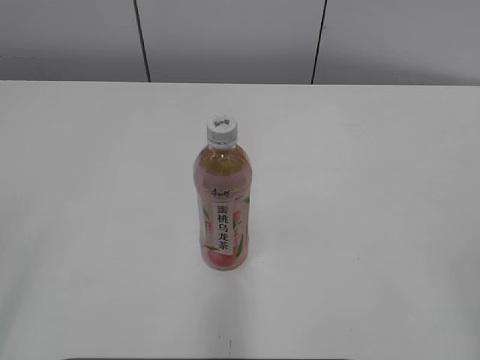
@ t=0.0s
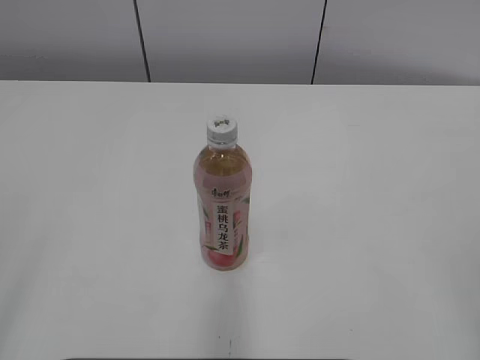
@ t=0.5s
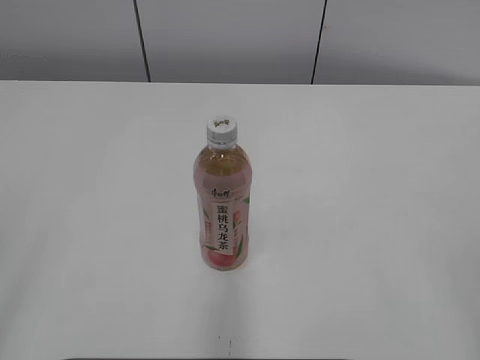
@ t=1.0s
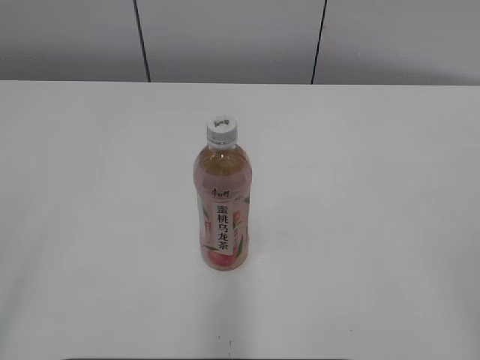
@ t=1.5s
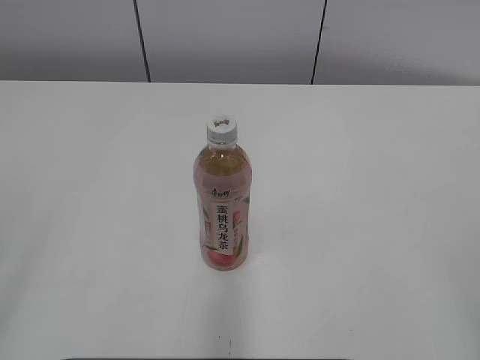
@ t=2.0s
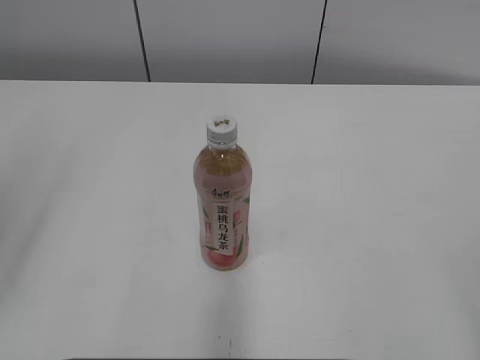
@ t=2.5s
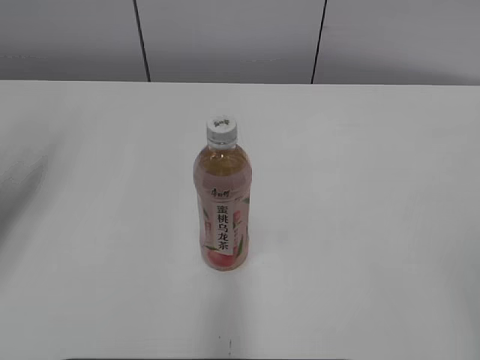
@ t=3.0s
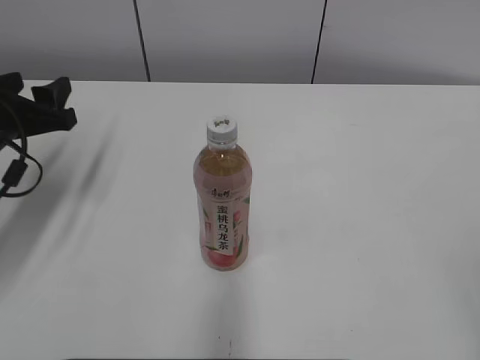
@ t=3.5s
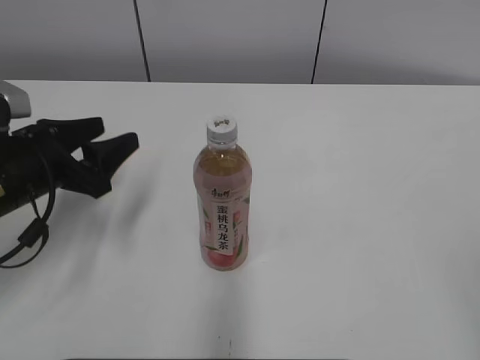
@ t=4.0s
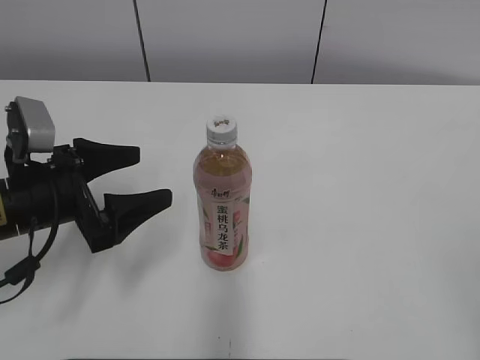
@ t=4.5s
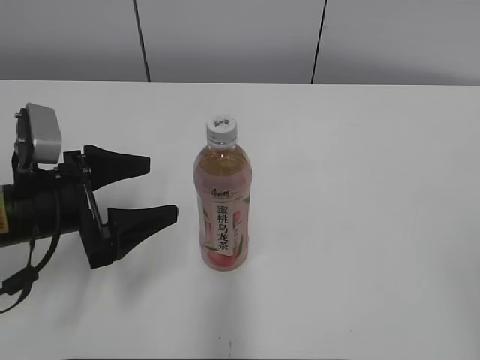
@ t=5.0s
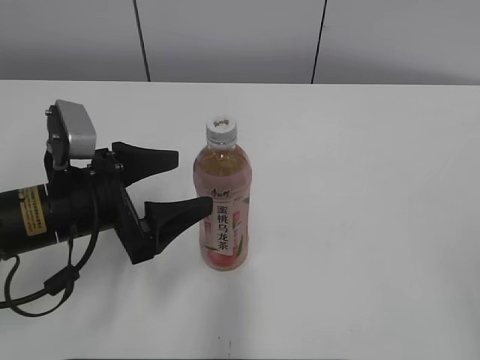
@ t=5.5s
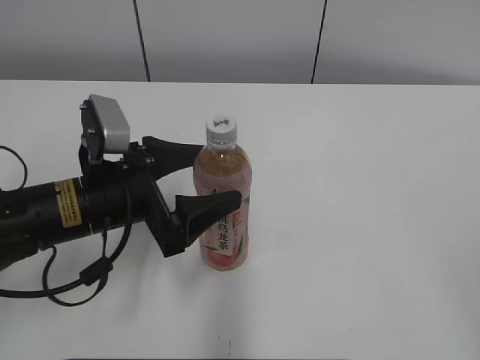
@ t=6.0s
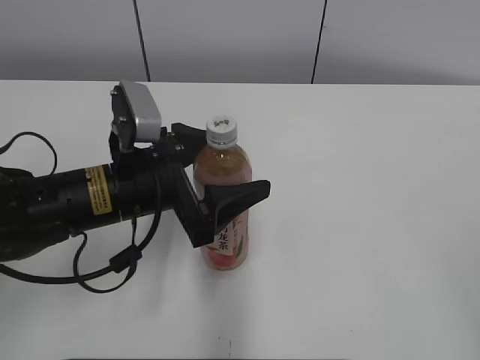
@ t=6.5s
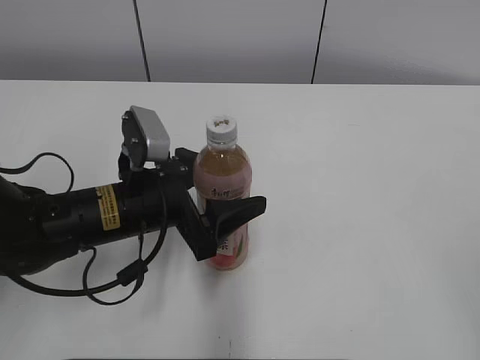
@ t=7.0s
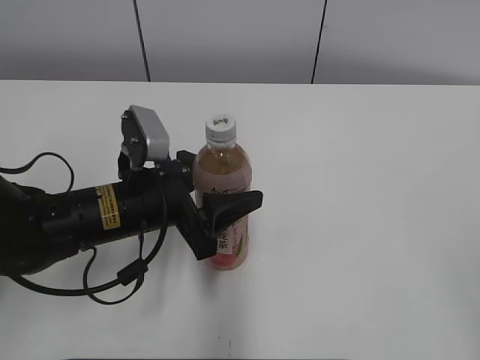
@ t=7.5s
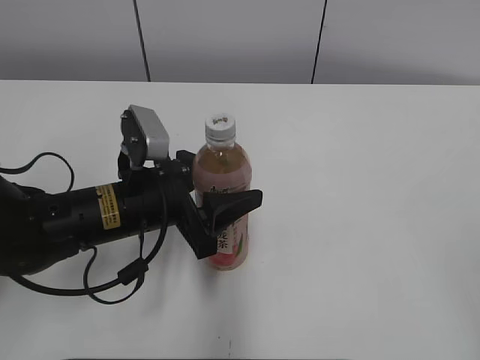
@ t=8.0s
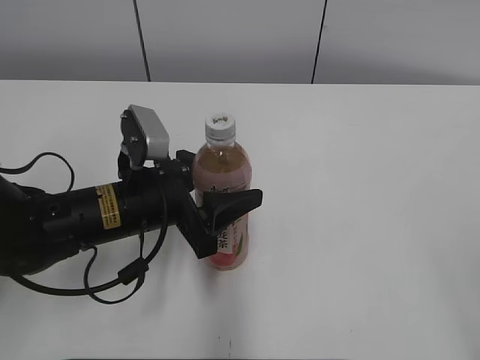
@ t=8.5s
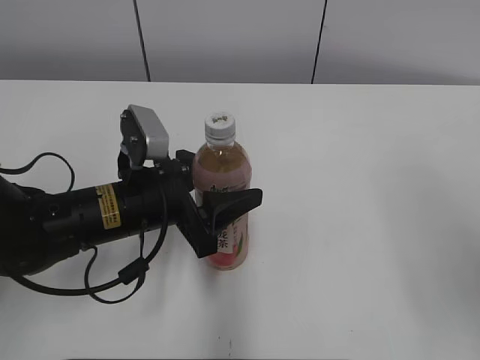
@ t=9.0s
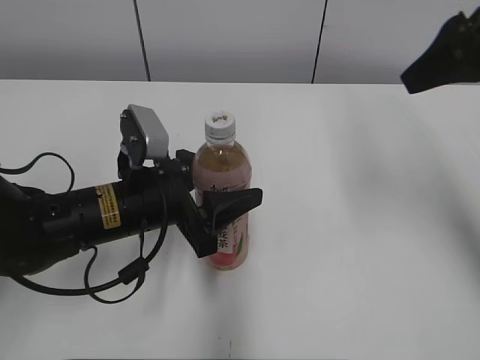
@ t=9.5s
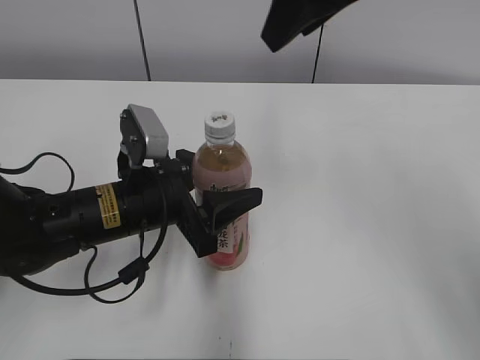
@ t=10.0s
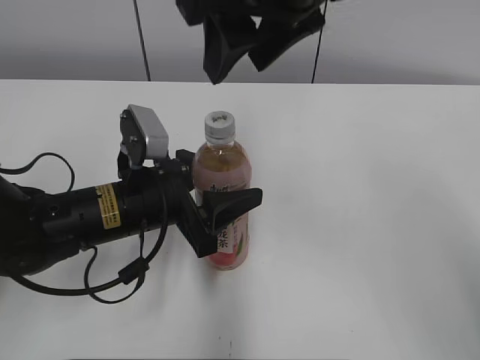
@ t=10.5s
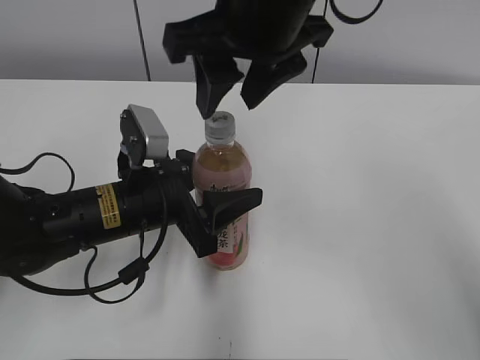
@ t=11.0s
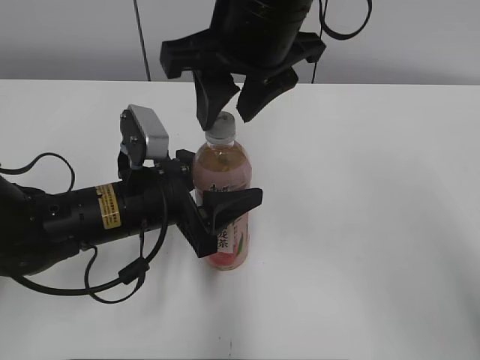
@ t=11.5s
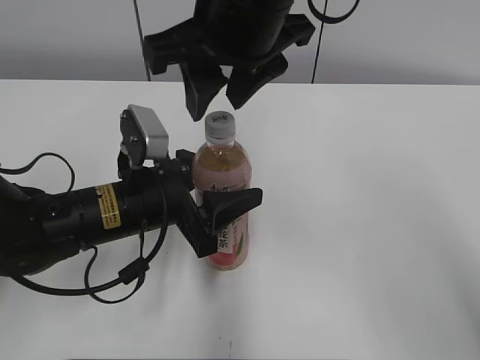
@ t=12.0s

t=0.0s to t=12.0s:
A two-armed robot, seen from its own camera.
Step, t=0.0s to t=7.5s: Grab the Peach Oolong Tea with the left hand.
t=2.0s to t=4.0s: The left gripper is displaced forward and downward by some 35 cm.
t=4.0s to t=6.0s: The left gripper shifts approximately 10 cm to the right, and opens up.
t=6.0s to t=8.0s: The left gripper closes up.
t=8.0s to t=10.0s: The right gripper is displaced forward and to the left by approximately 40 cm, and closes its fingers.
t=10.0s to t=12.0s: The right gripper moves to the left, roughly 10 cm.

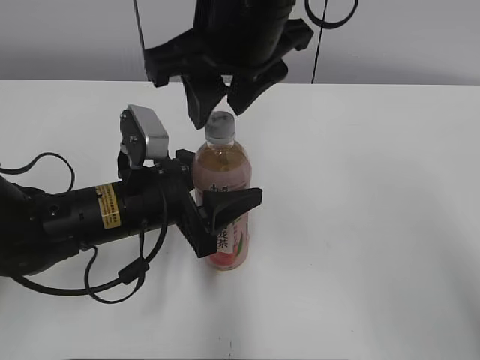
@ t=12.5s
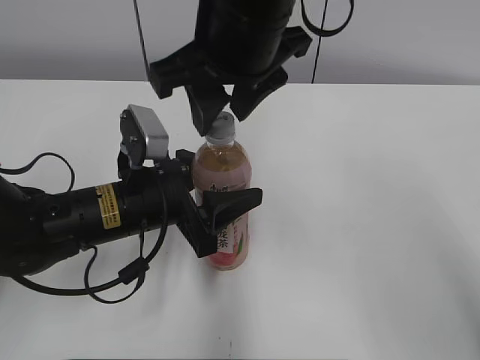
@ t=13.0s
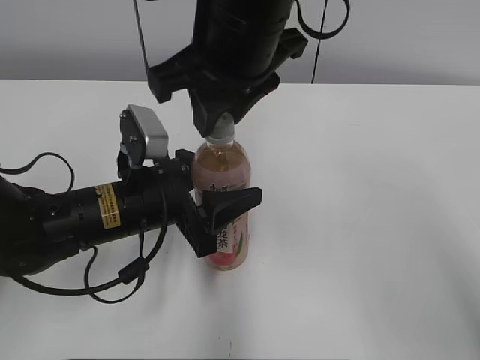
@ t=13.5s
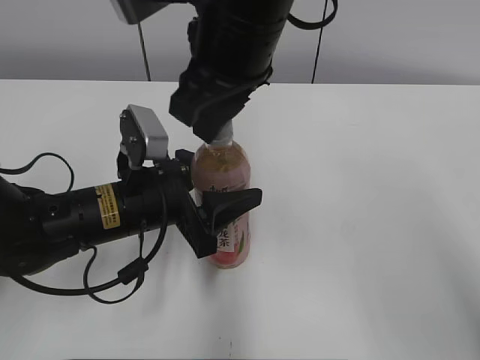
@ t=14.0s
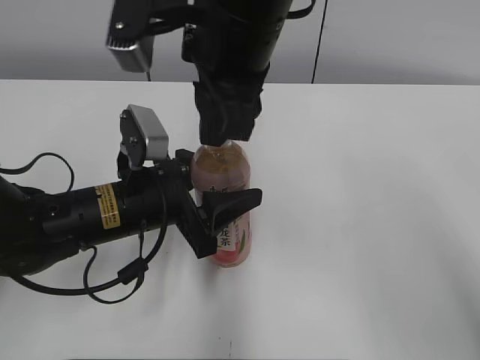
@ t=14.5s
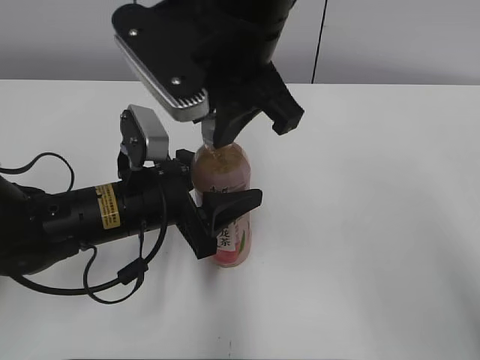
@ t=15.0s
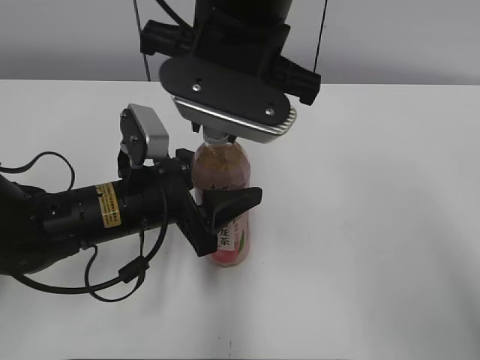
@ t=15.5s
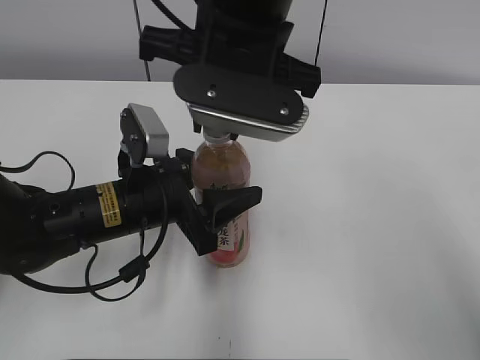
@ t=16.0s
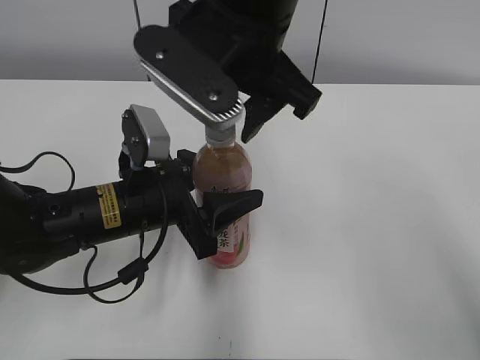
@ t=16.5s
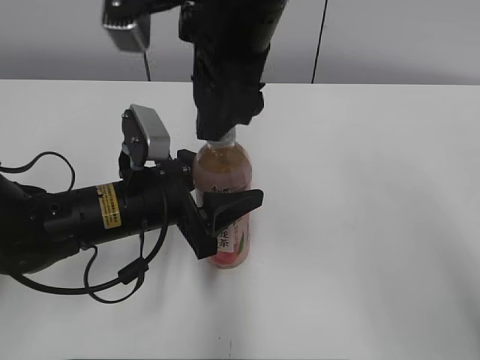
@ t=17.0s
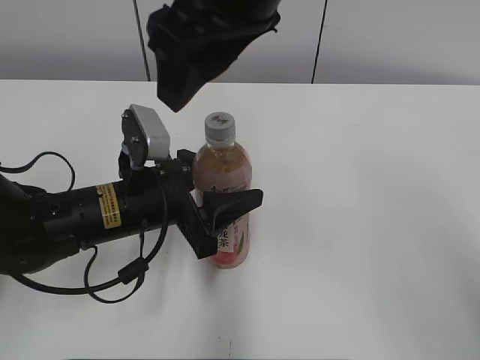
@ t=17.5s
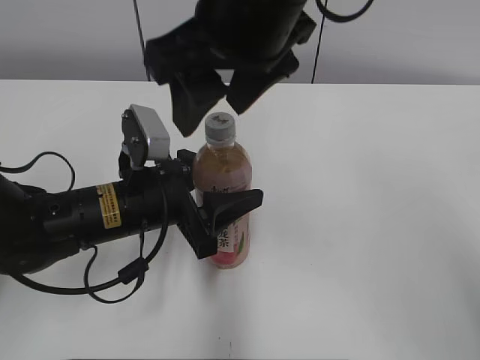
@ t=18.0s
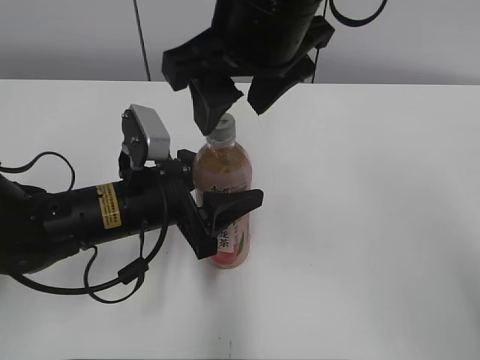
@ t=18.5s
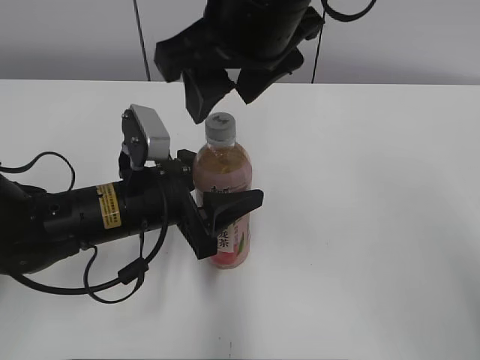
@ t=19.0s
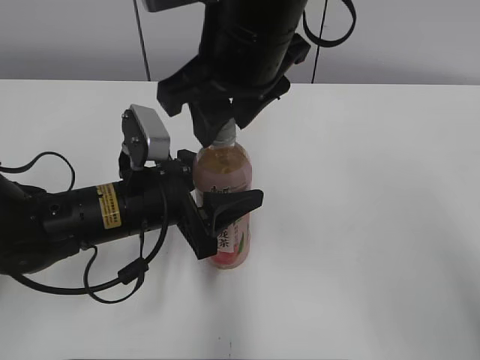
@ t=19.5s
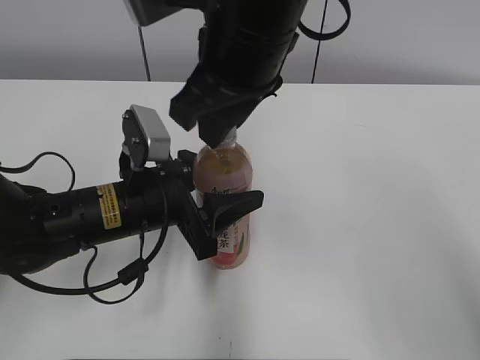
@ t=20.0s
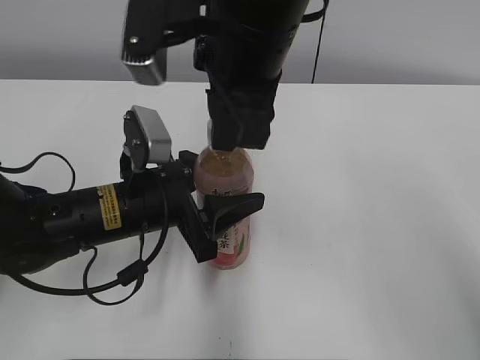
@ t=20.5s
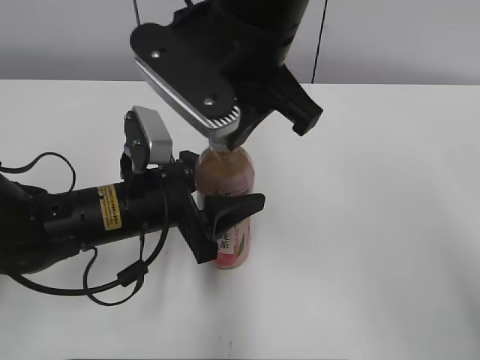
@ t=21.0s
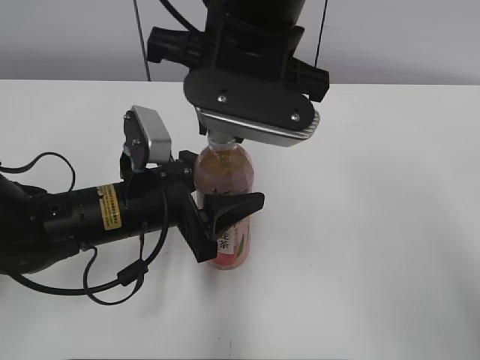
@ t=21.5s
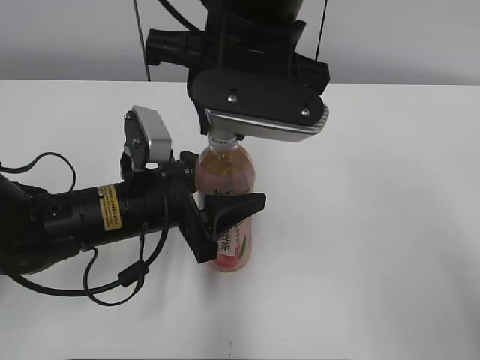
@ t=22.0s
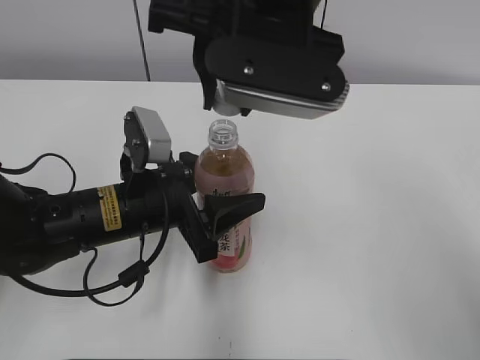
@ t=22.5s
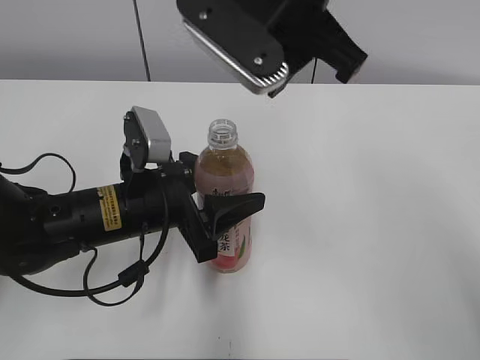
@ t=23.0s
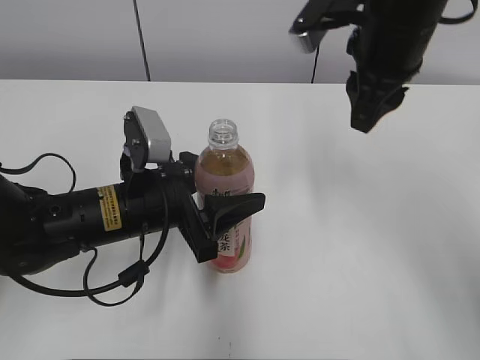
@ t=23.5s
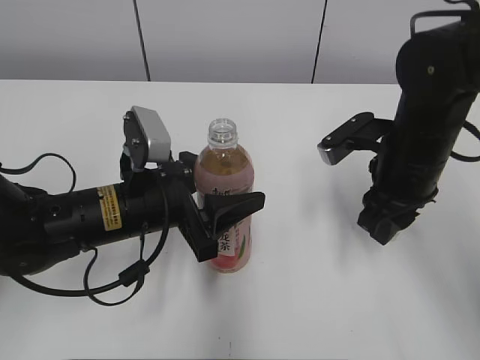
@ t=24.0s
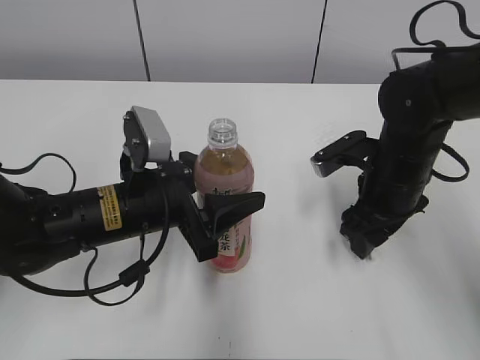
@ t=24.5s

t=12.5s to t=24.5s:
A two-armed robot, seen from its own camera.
t=14.5s to t=16.5s: The right gripper opens its fingers.
t=18.5s to t=20.5s: The right gripper closes up.
t=22.5s to t=24.5s: The right gripper moves downward and to the right, roughly 25 cm, and opens its fingers.

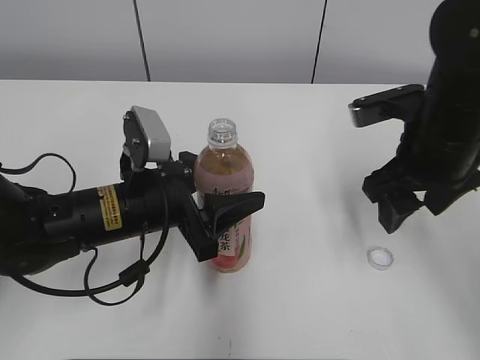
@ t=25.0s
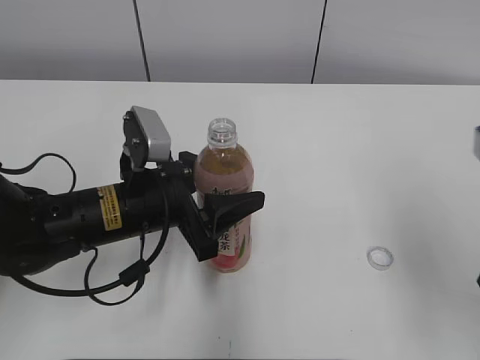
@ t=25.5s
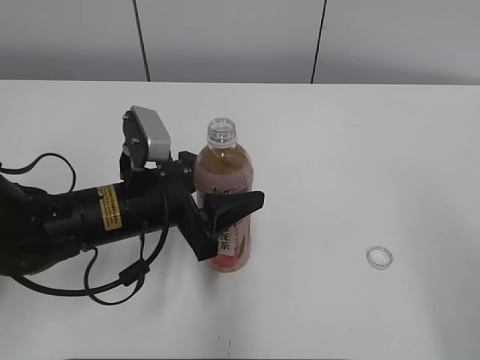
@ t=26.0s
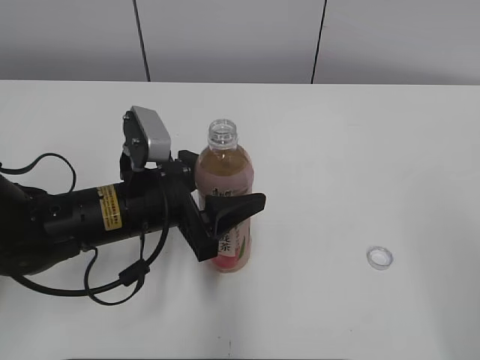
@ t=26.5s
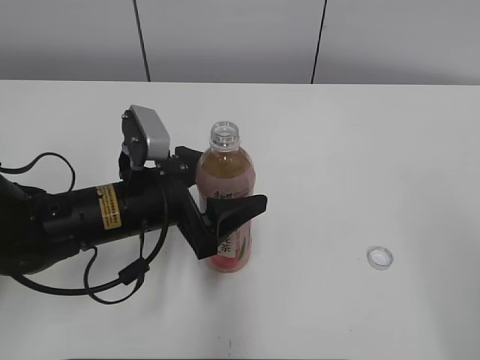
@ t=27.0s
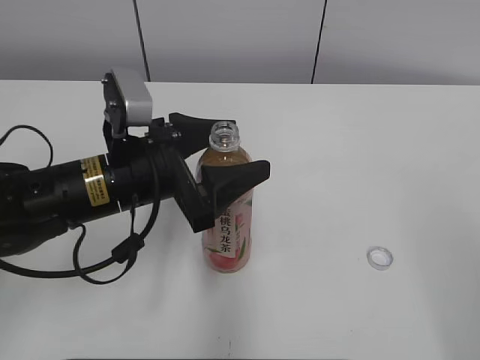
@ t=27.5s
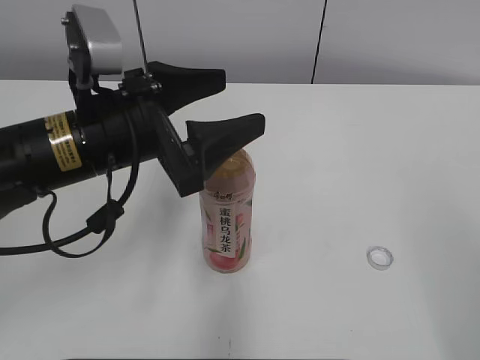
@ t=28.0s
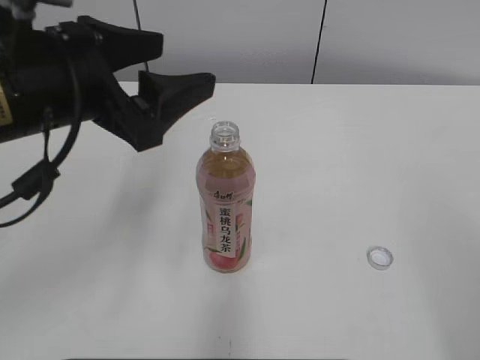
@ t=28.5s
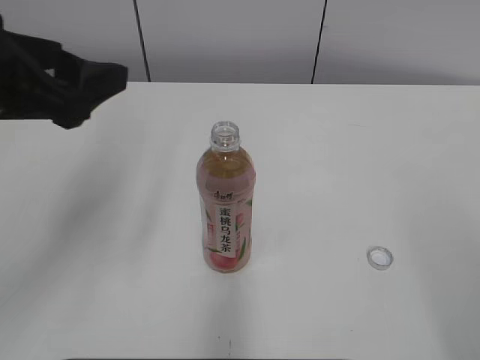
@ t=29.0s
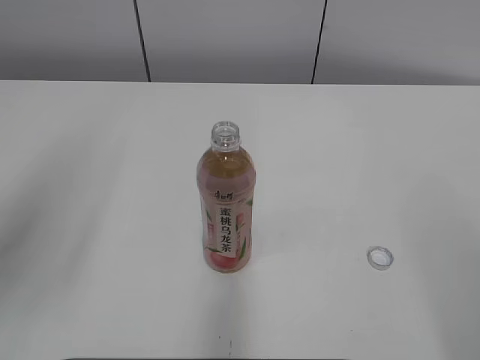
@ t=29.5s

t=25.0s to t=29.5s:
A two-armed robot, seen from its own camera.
t=25.0s to t=27.0s: The right gripper travels backward and to the right by roughly 25 cm. The left gripper opens its fingers.
t=27.0s to t=29.5s: The left gripper shifts approximately 30 cm upward, to the left and backward.
